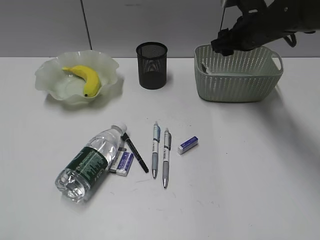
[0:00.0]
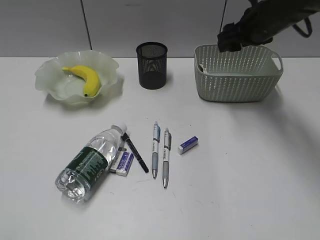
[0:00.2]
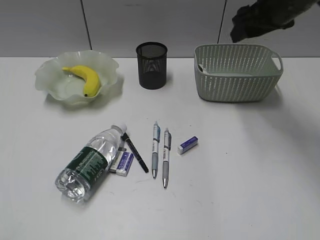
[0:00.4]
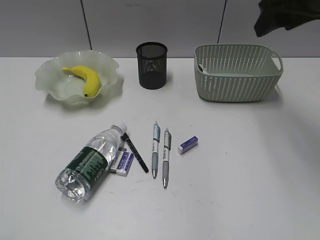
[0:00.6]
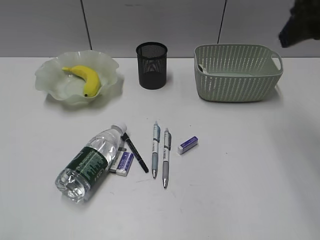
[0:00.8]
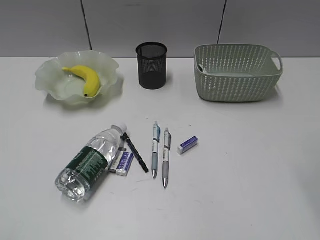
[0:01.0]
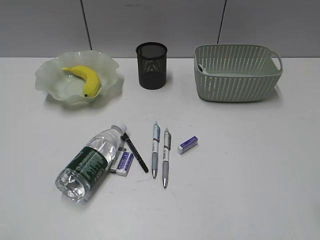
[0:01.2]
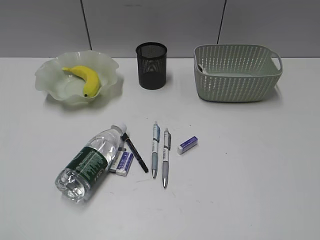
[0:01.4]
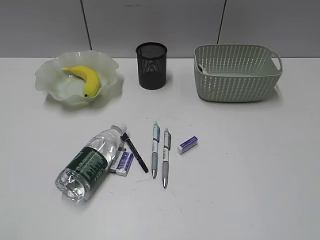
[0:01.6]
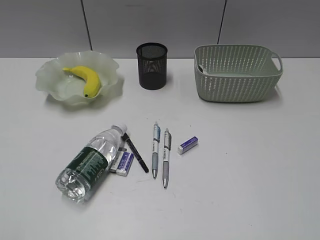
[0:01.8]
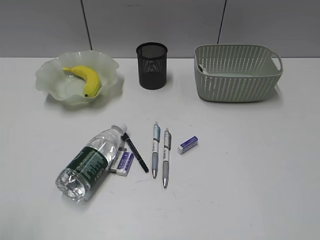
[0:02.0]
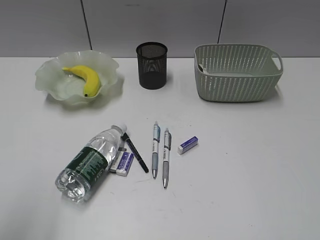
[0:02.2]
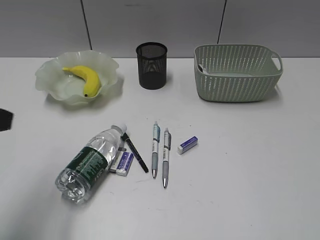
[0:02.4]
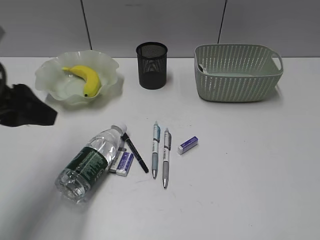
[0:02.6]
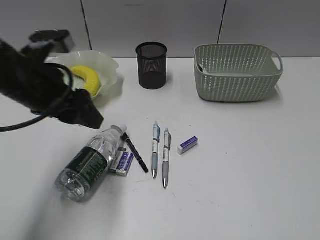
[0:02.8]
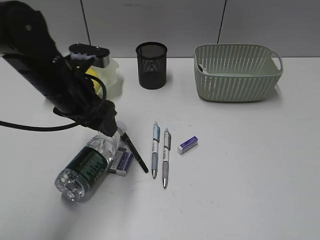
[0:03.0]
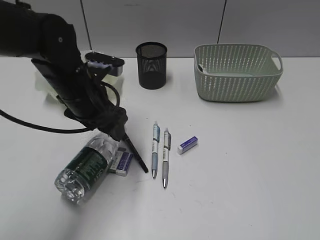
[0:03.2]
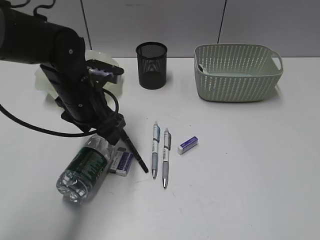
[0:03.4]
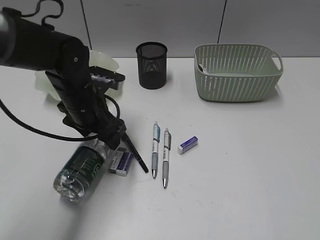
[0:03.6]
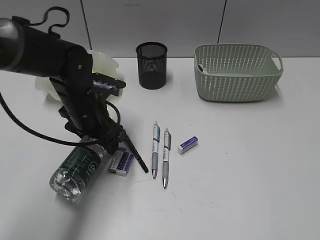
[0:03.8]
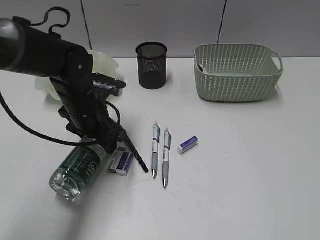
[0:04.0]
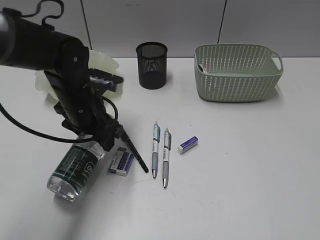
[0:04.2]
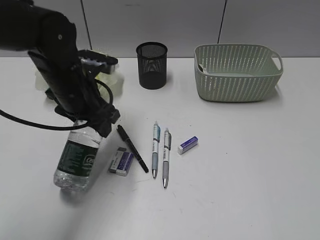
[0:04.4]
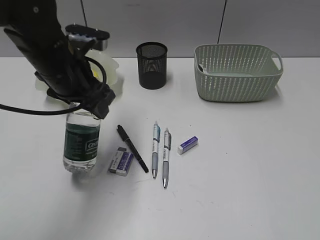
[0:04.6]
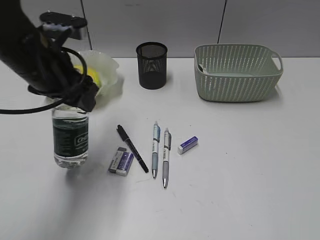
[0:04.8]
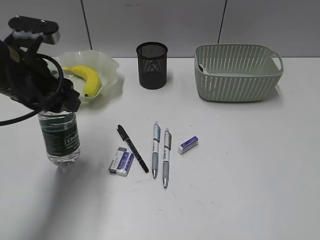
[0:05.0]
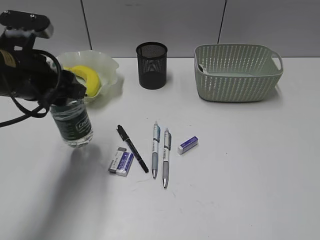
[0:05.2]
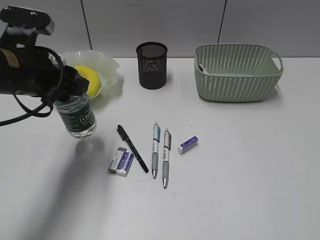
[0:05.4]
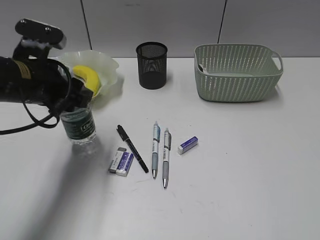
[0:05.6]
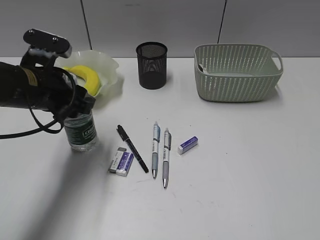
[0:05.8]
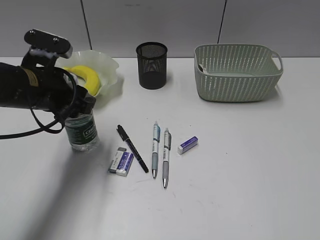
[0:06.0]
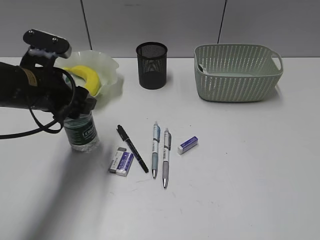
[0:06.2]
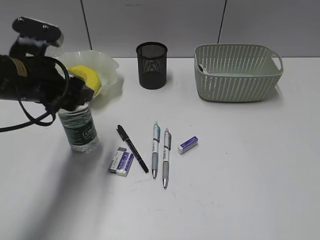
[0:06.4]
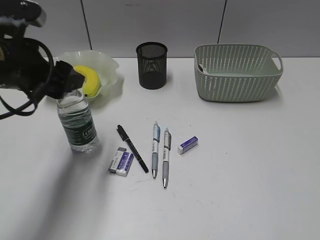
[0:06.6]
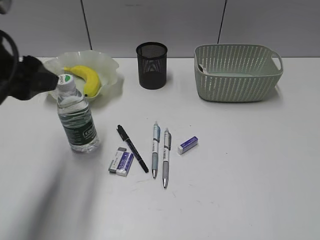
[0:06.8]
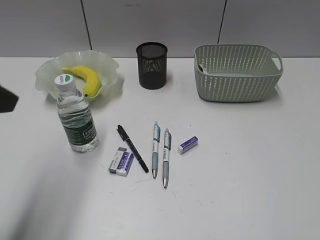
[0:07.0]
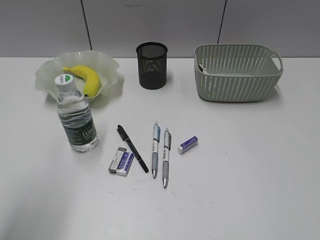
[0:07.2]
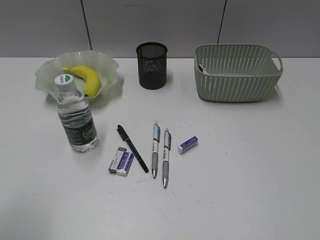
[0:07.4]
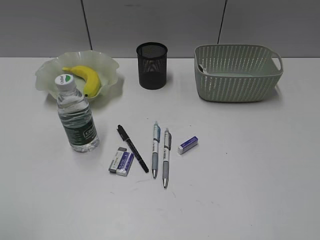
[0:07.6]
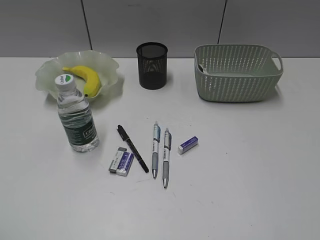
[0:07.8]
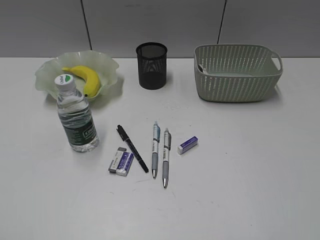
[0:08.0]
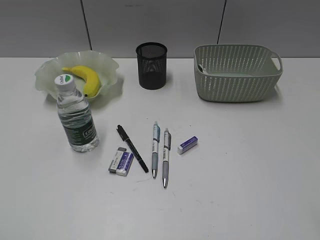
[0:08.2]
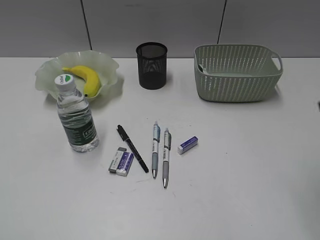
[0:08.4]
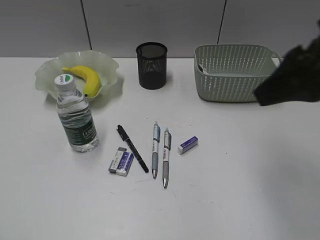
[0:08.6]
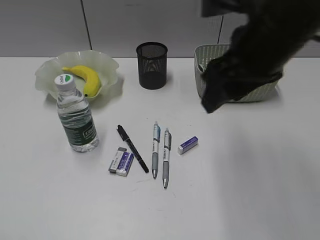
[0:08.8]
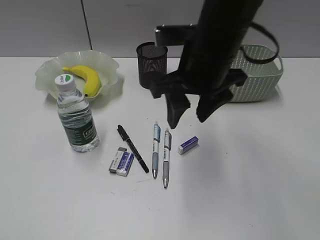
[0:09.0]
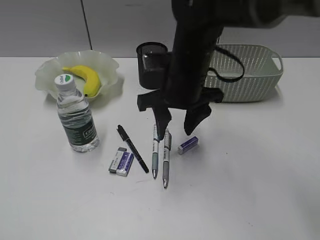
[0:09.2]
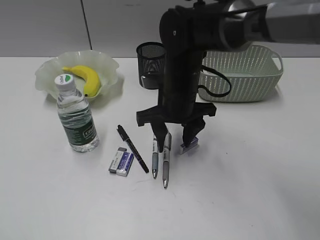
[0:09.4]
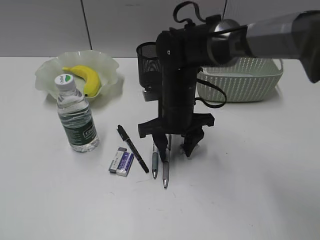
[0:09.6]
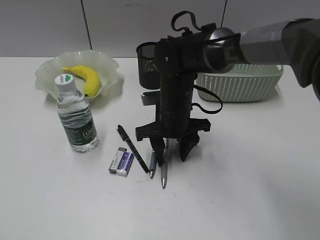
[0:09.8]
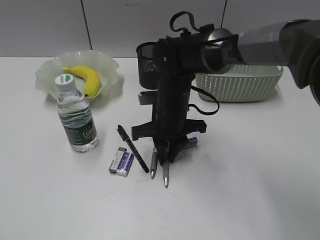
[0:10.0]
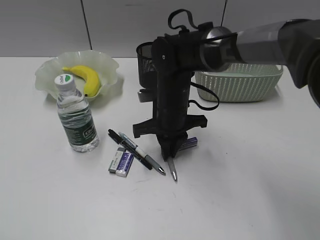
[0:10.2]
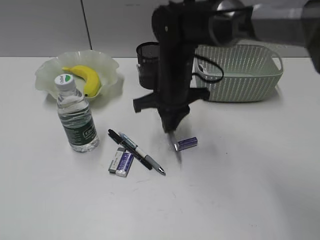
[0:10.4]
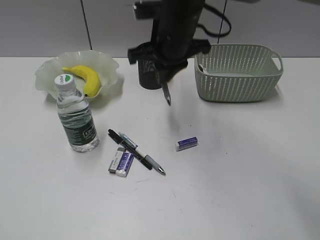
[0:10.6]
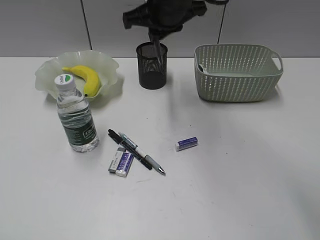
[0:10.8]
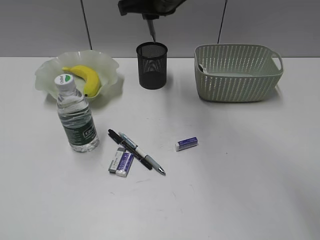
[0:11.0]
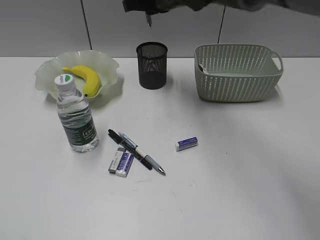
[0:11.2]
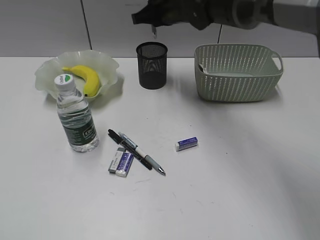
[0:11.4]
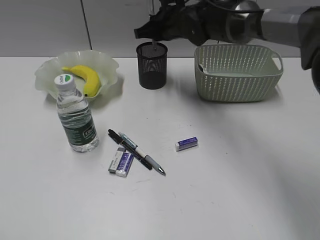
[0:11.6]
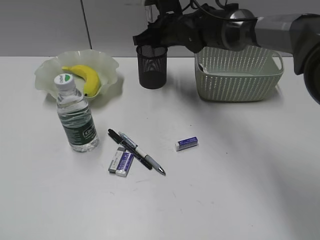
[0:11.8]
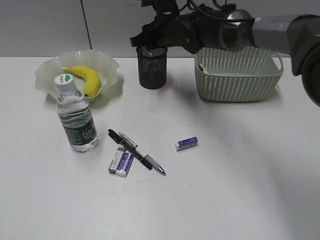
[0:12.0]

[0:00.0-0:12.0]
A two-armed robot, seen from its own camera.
Step, 0:00.2 to 0:03.8: Grasp the bottle with left gripper.
Step, 0:04.0 to 0:06.6: Stand the bottle with left gripper.
Step, 0:06.8 to 0:10.0: Grasp the gray pen with right gripper.
0:00.0 to 0:01.6: The right gripper moves backward, approximately 50 cm.
0:01.6 to 0:03.0: The left gripper is displaced forward and to the right by roughly 35 cm, and opens its fingers.
0:04.4 to 0:06.0: The left gripper is displaced to the left by approximately 5 cm.
0:06.0 to 0:07.6: The left gripper shifts some 30 cm backward and to the left.
0:07.6 to 0:09.0: The right gripper moves forward and to the left, roughly 40 cm. The left gripper changes place by some 5 cm.
0:09.0 to 0:10.4: The right gripper goes about 15 cm downward and forward, and closes.
0:10.4 to 0:12.0: The right gripper goes some 15 cm forward, moves some 15 cm upward and comes back, and opens up.

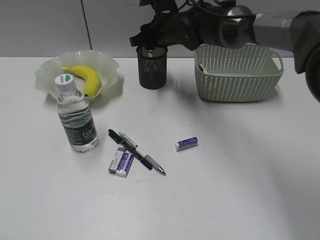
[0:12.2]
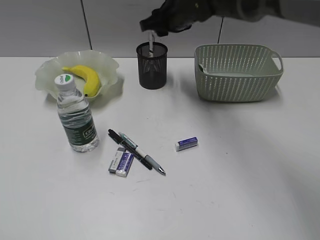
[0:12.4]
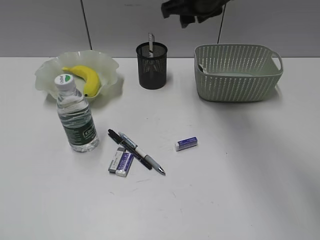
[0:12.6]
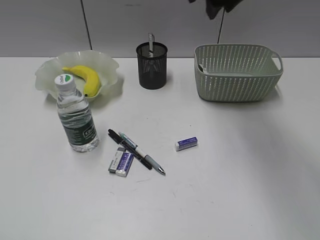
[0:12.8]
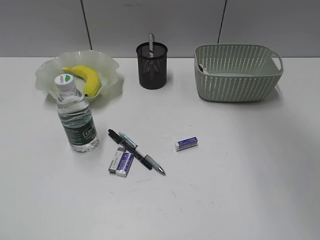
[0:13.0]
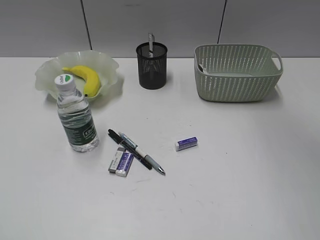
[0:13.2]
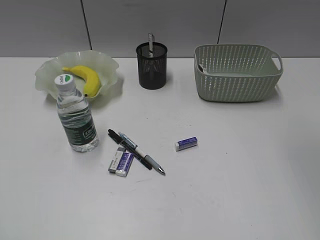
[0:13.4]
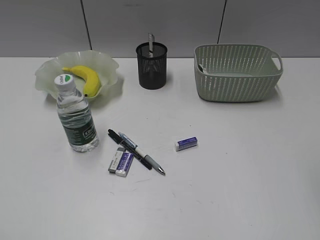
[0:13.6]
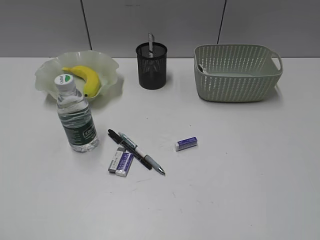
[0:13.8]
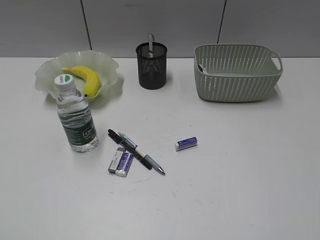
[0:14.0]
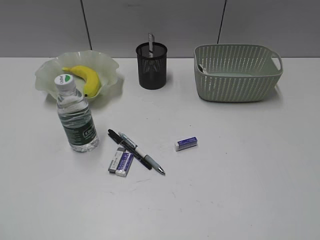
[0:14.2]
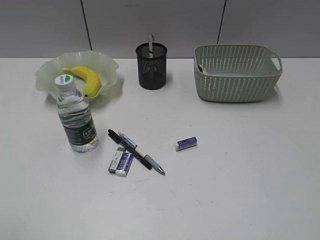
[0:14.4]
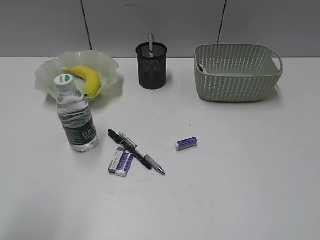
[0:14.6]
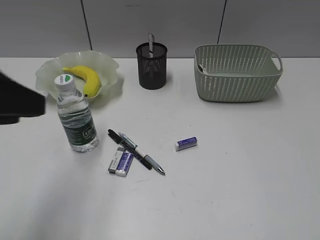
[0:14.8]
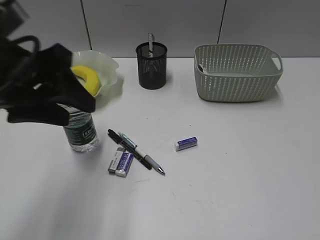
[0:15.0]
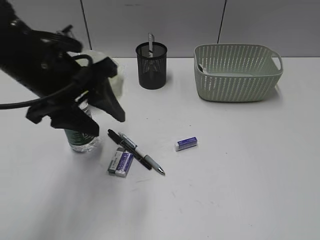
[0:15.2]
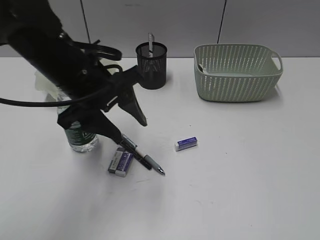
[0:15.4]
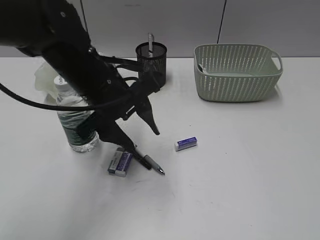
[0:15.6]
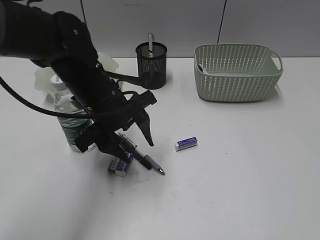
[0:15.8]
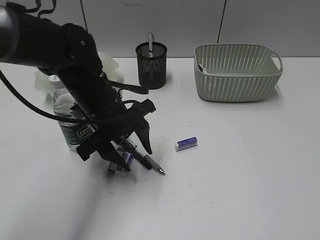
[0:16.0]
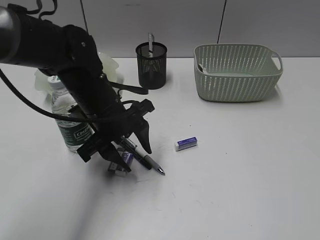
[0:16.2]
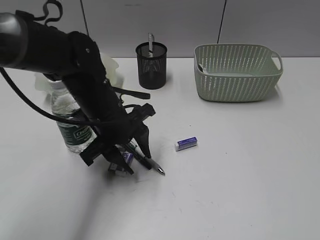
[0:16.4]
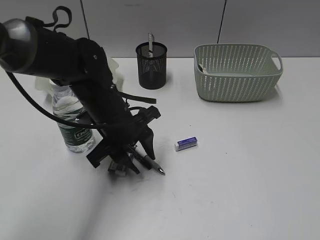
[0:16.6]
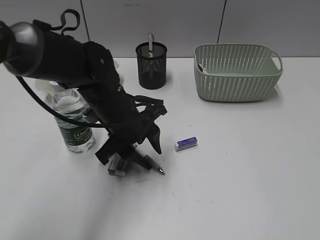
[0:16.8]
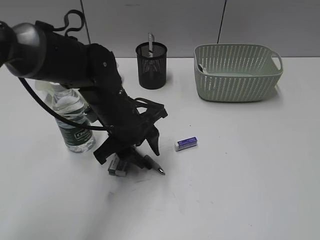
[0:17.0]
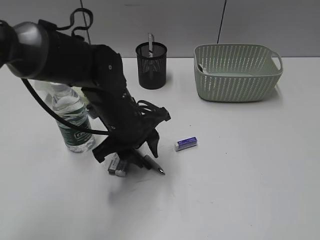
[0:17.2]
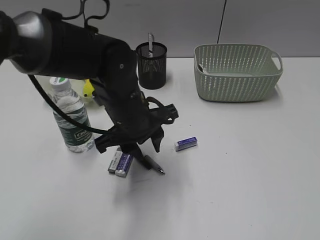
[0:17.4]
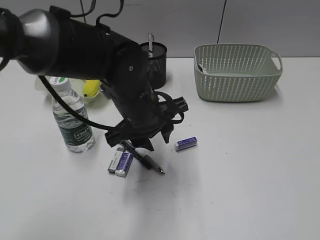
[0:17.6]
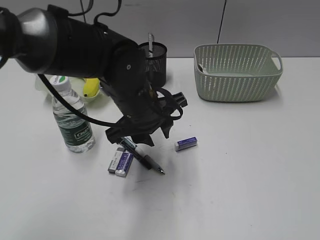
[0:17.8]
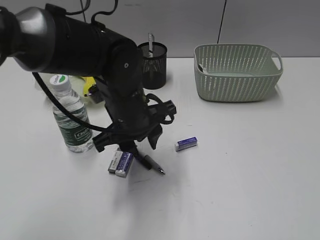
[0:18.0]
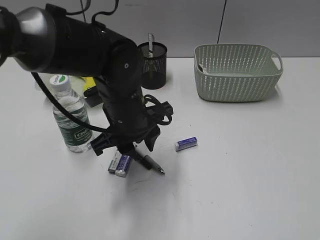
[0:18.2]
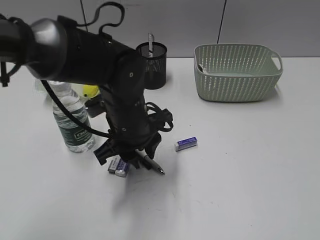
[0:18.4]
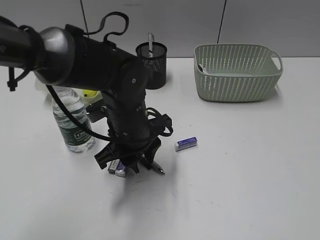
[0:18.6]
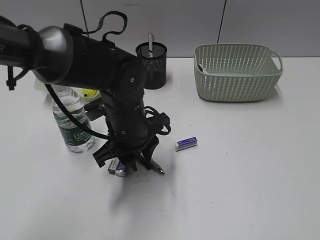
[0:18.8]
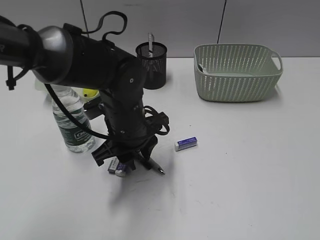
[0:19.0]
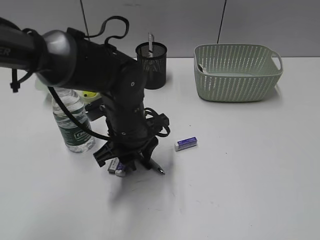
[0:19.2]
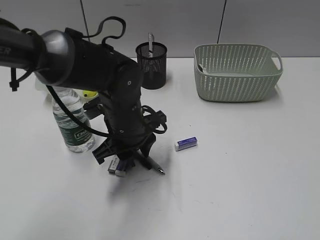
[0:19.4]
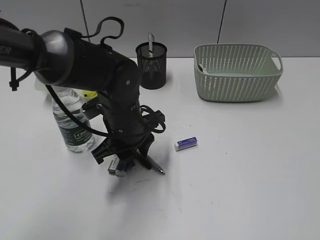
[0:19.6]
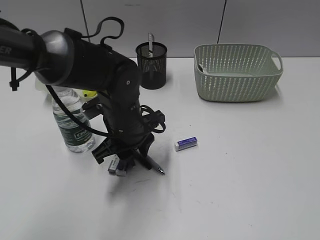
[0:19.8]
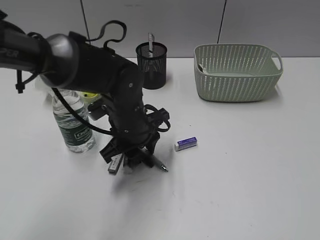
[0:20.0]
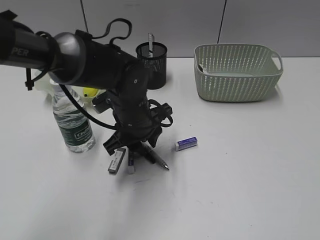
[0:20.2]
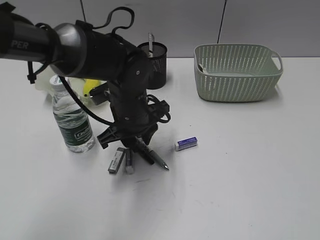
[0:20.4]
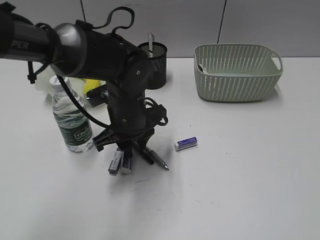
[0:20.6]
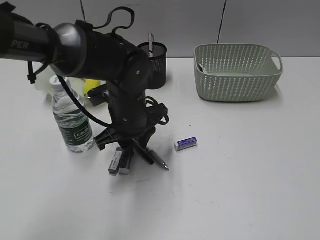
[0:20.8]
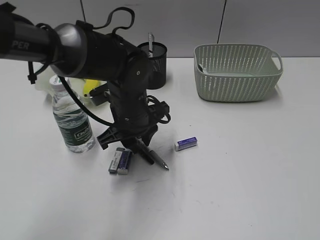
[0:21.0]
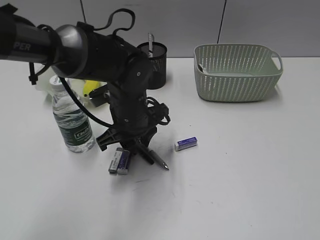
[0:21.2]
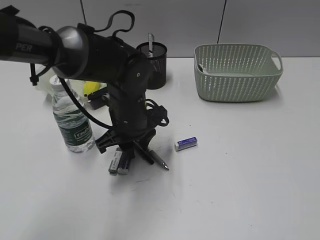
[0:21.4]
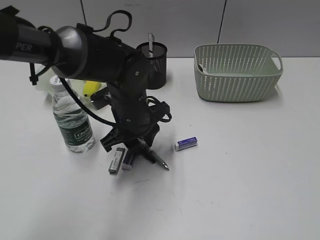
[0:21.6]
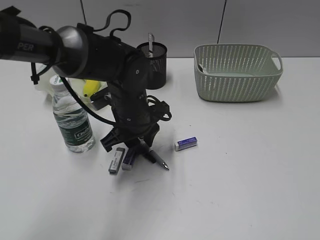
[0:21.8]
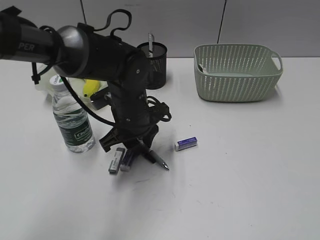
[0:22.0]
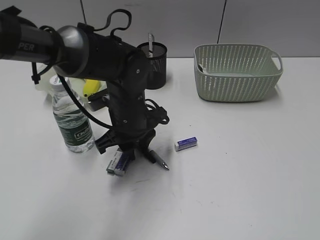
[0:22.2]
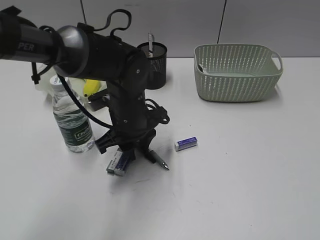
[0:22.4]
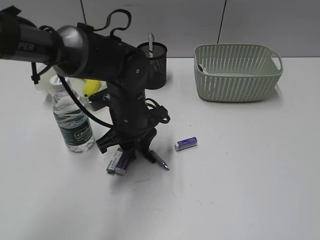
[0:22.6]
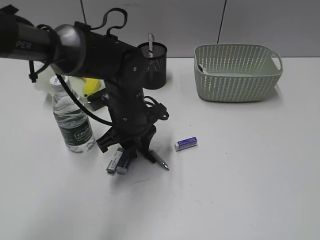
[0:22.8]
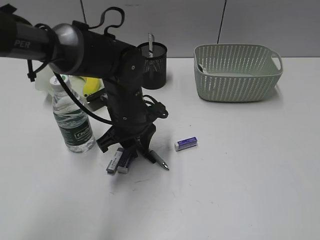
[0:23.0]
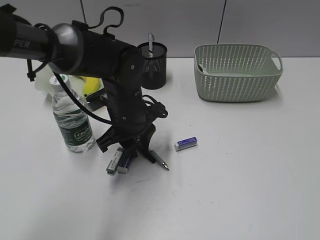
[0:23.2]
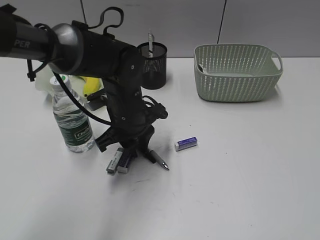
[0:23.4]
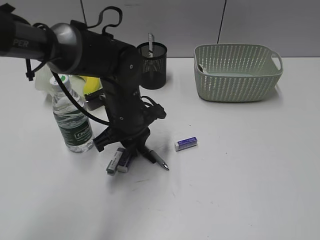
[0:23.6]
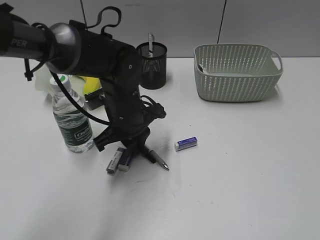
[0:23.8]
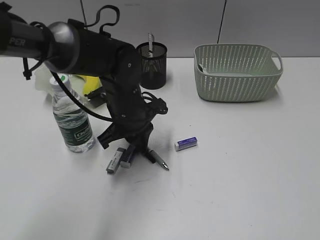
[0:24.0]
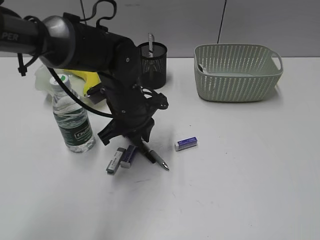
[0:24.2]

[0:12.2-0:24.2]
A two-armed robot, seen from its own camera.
0:12.2 to 0:13.8: The right gripper is displaced backward, to the right and upward by some 50 cm.
0:13.8 to 0:15.2: The right gripper goes about 15 cm backward, downward and to the right; the left gripper moves forward and to the right, some 30 cm.
0:15.2 to 0:16.6: The left gripper travels downward and to the right by roughly 15 cm.
0:18.2 to 0:24.2: The grippers stay close to where they were, moving slightly.
